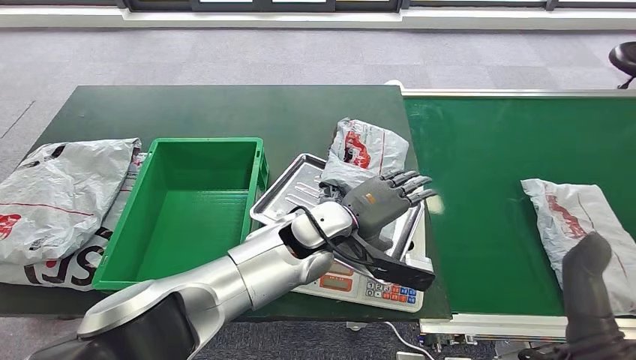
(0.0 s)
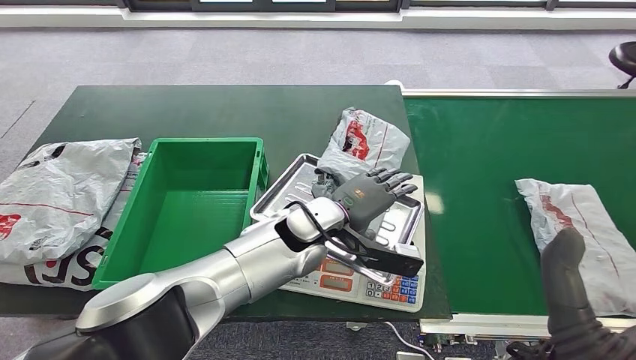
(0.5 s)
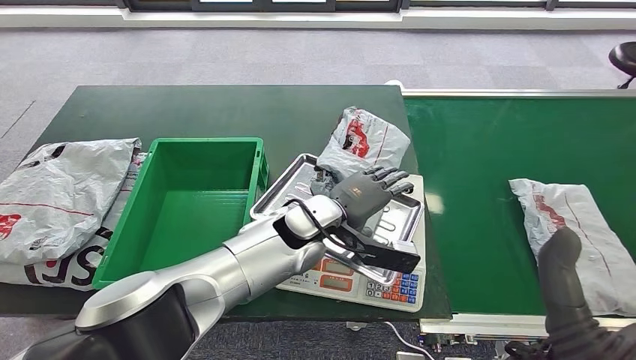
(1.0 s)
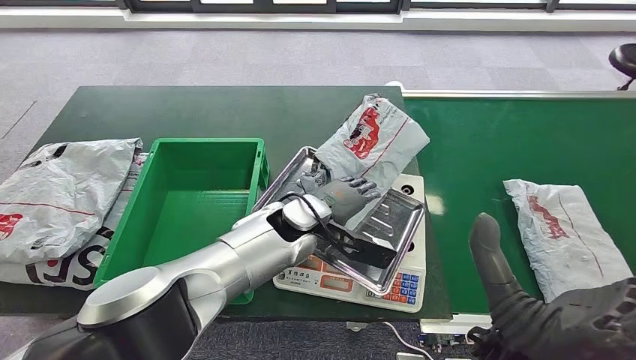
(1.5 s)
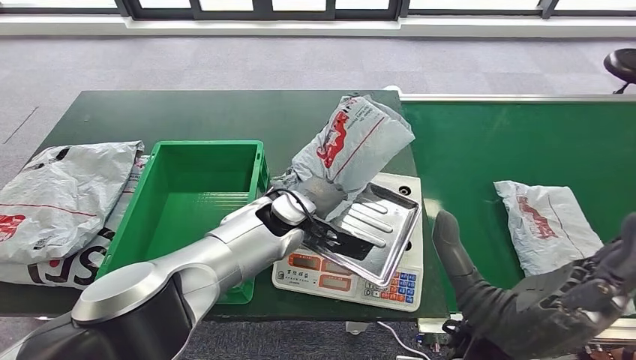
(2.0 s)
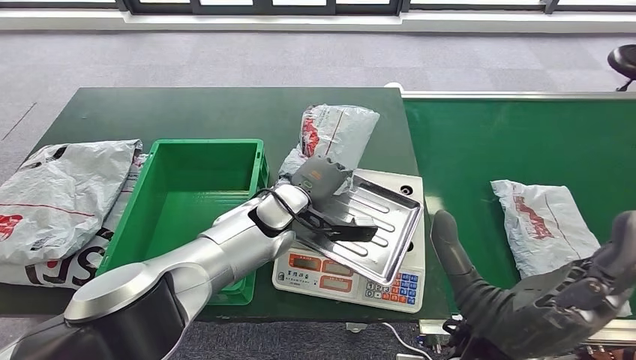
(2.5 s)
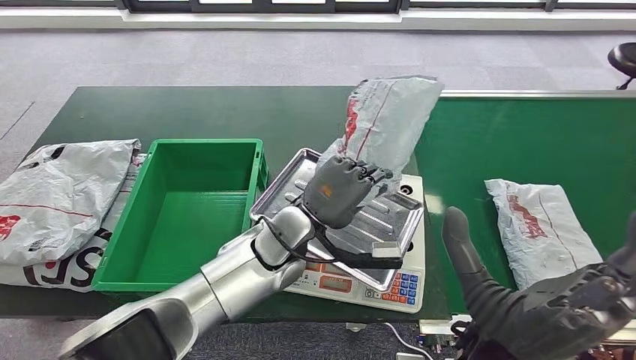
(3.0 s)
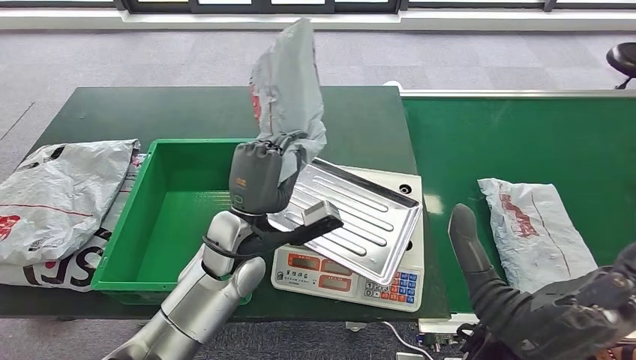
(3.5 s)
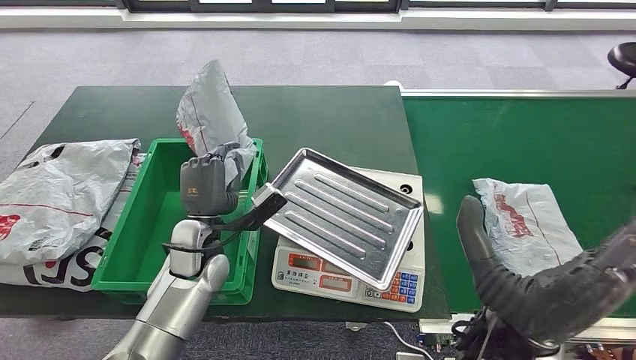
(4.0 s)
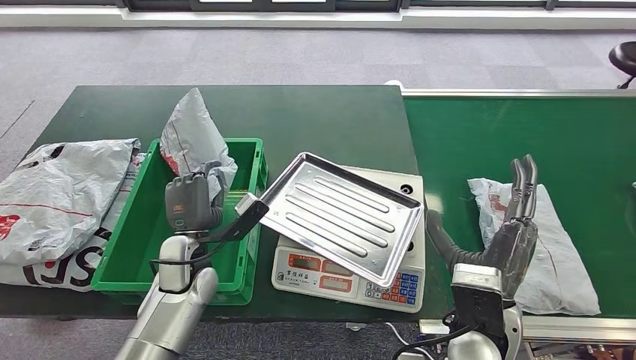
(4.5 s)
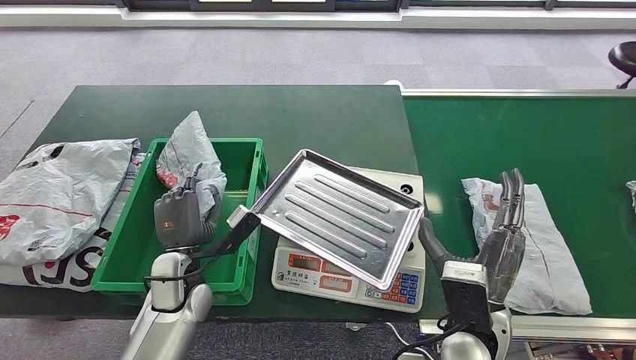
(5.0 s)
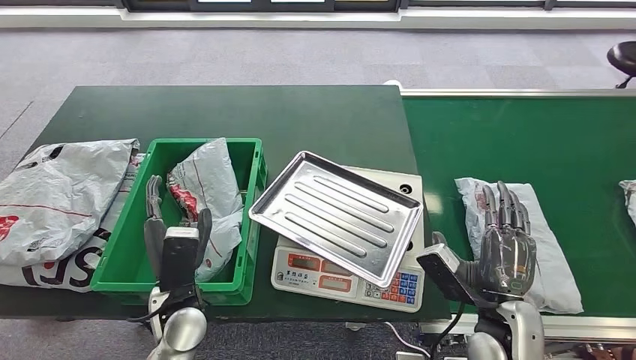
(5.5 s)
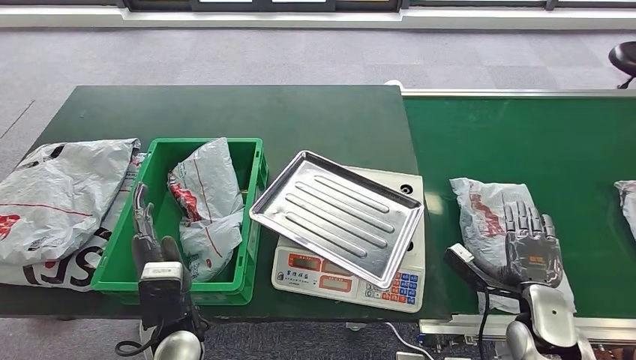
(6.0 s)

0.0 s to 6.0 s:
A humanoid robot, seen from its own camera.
Step, 0.0 to 3.0 s: Pick up the parcel from the inbound machine.
Step, 3.5 to 6.0 s: Put the parcel inside the courier box.
